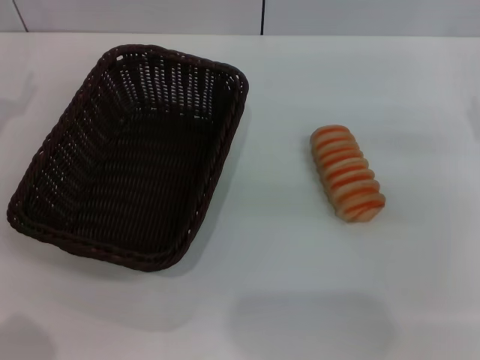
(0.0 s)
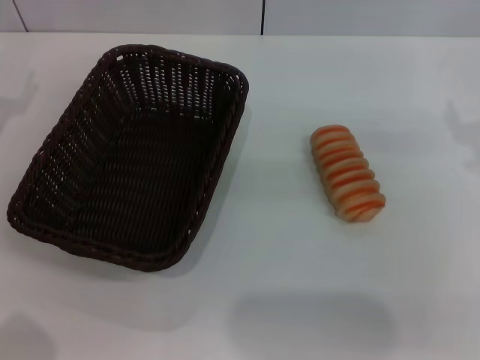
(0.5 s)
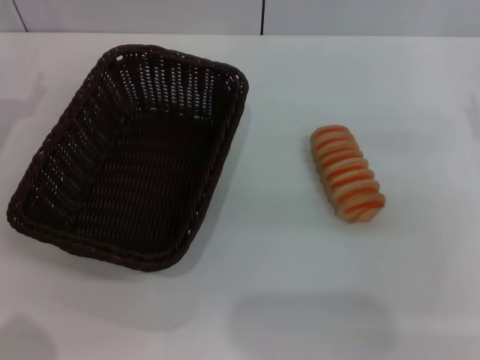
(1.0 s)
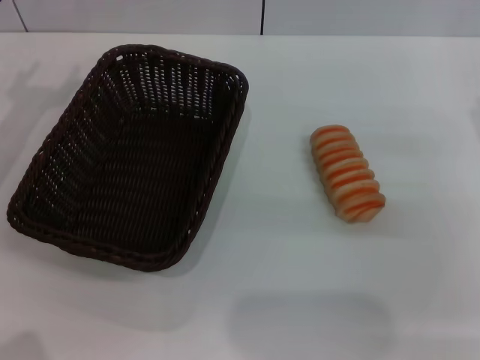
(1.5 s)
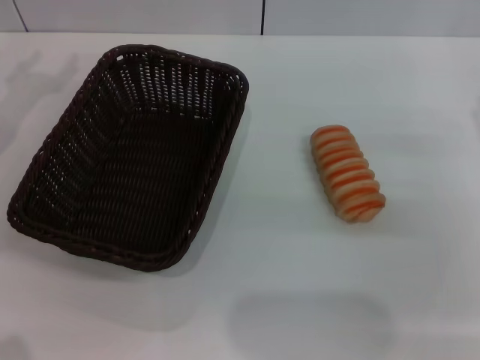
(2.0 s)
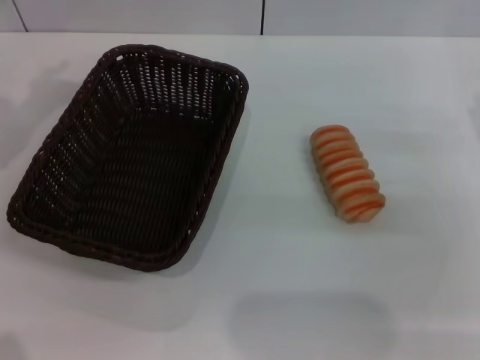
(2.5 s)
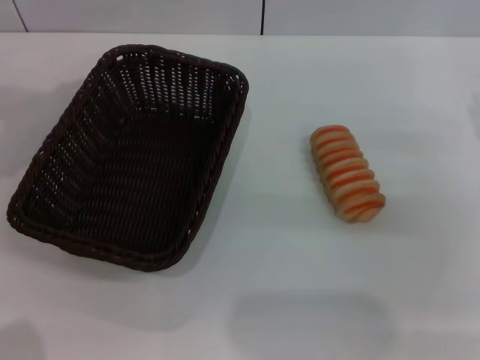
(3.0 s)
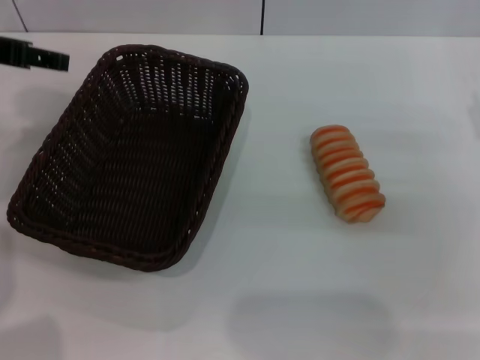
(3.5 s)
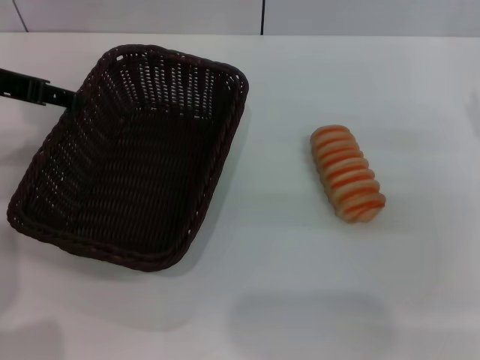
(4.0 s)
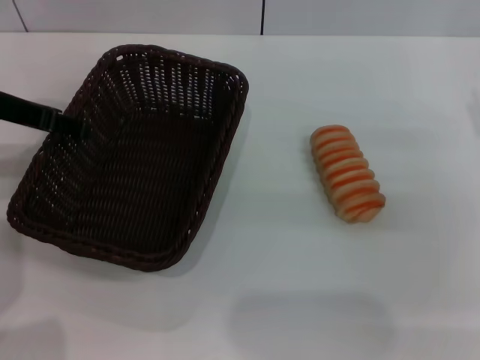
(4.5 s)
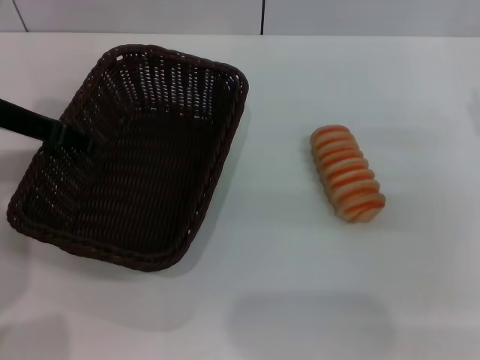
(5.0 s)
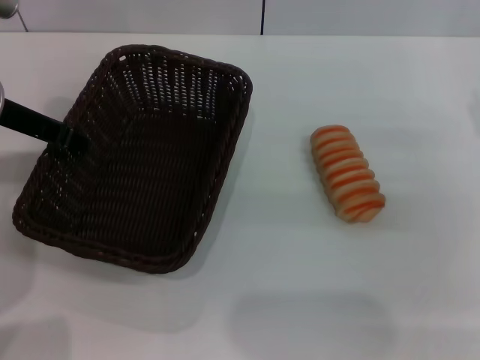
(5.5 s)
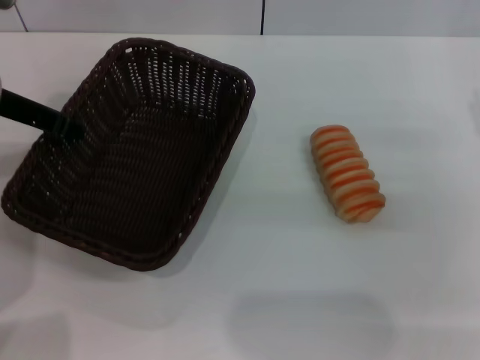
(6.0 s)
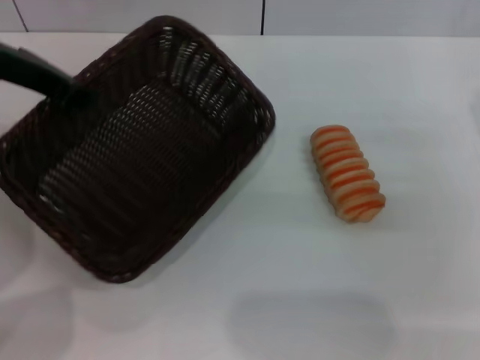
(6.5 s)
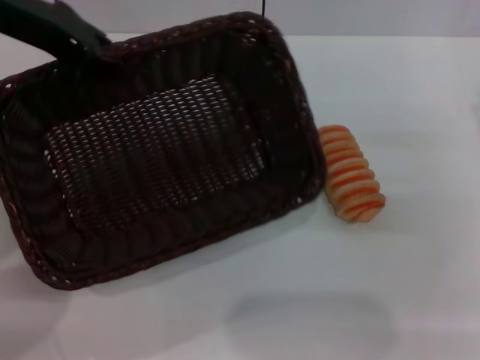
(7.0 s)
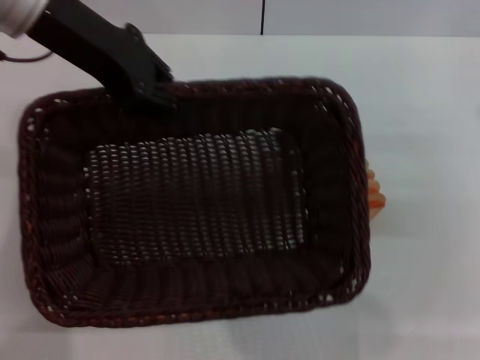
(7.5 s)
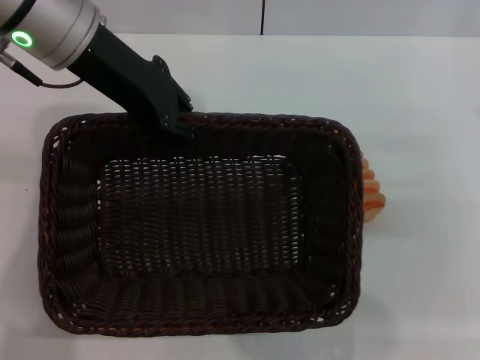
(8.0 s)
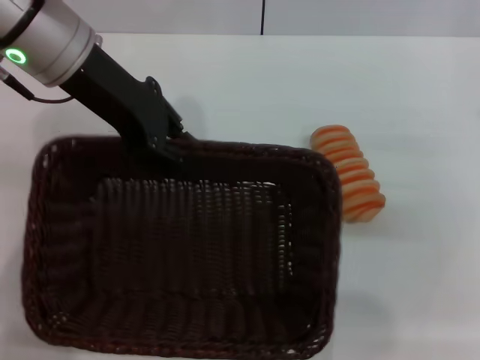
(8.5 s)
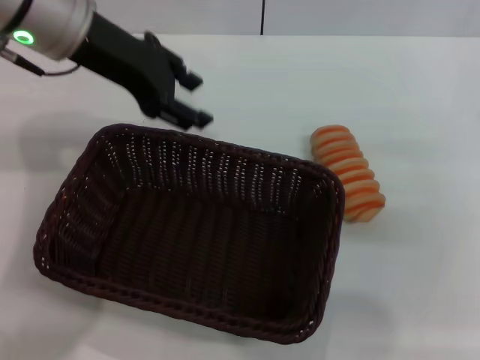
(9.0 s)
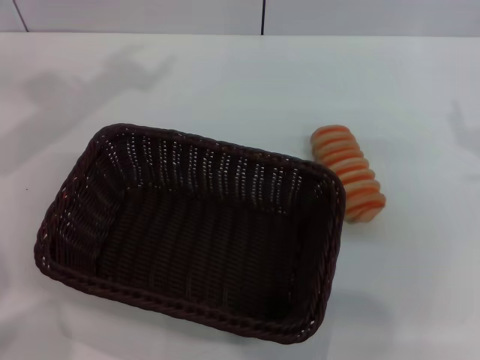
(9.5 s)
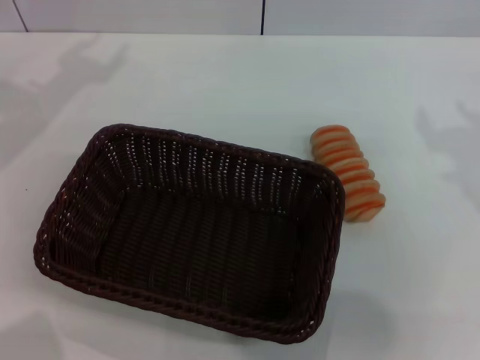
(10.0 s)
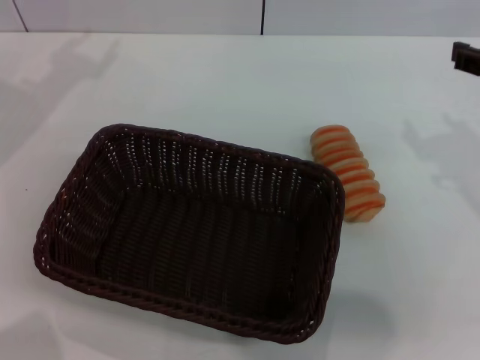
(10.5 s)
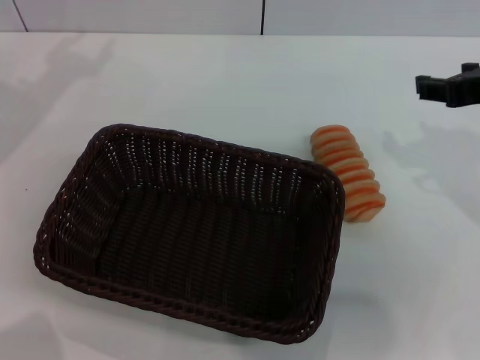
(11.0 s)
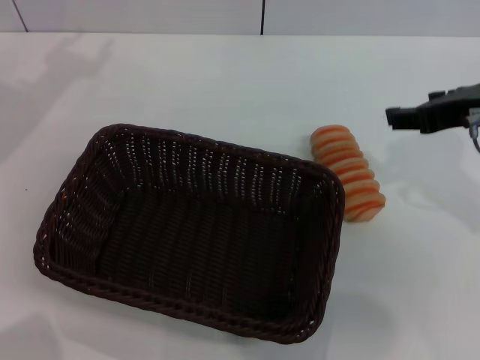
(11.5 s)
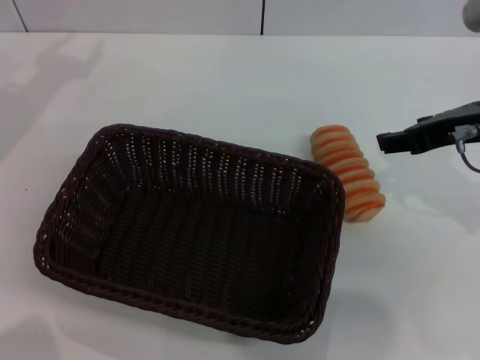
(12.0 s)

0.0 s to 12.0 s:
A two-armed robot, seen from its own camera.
Step, 0.0 to 5.5 s: Grasp the basket with the left gripper.
Step, 6.0 to 9.0 s: Place the basket in the center of the table with the left gripper.
2.0 to 4.0 s: The left gripper goes roughly 10 cm to the right.
4.0 to 6.0 s: The left gripper closes its fingers.
6.0 to 8.0 s: The left gripper shifts roughly 10 cm to the right and upward.
8.0 to 10.0 s: The left gripper heads to the left, covering some 15 cm, and opens its fingers, while the right gripper moves about 5 cm.
10.0 to 12.0 s: The right gripper moves approximately 5 cm.

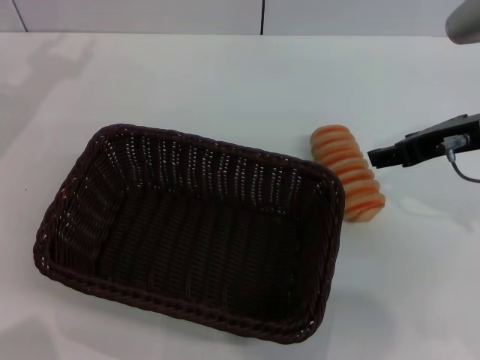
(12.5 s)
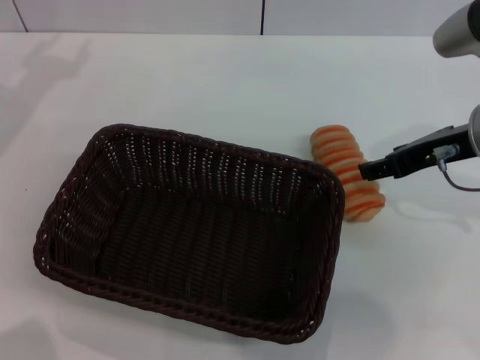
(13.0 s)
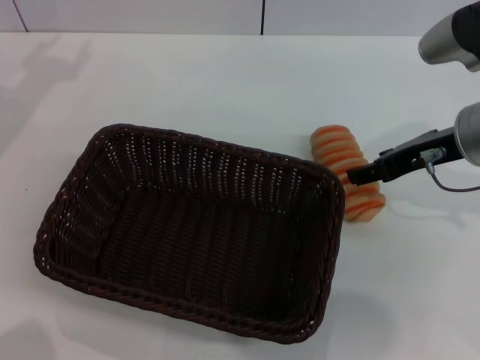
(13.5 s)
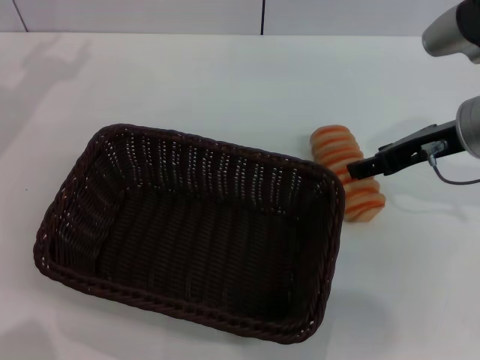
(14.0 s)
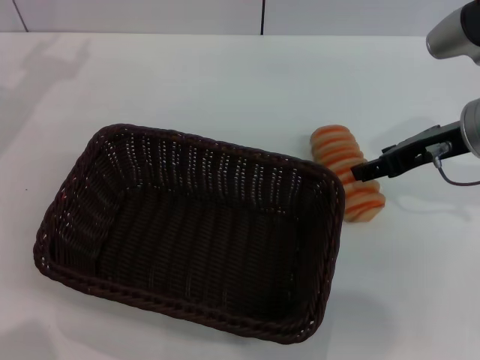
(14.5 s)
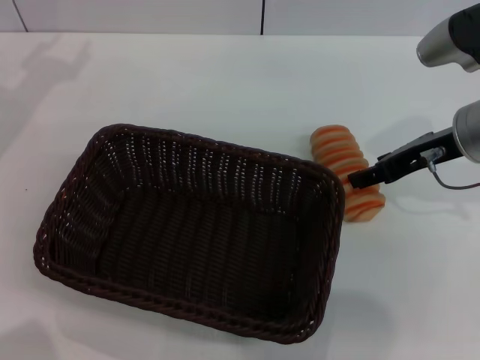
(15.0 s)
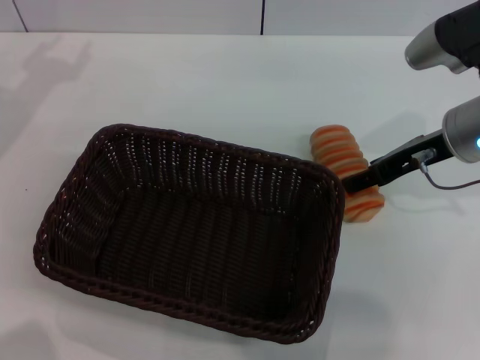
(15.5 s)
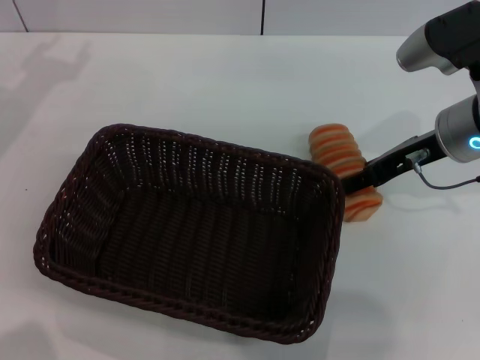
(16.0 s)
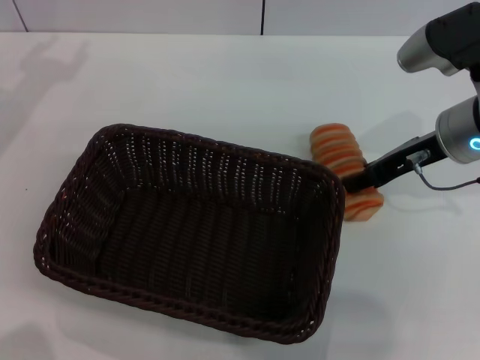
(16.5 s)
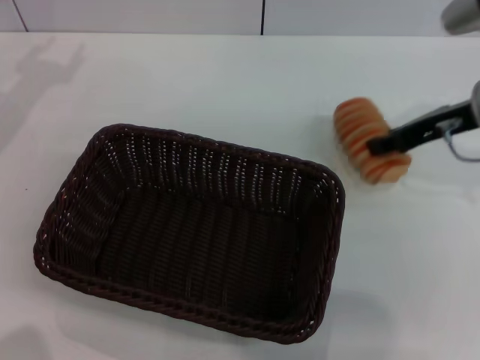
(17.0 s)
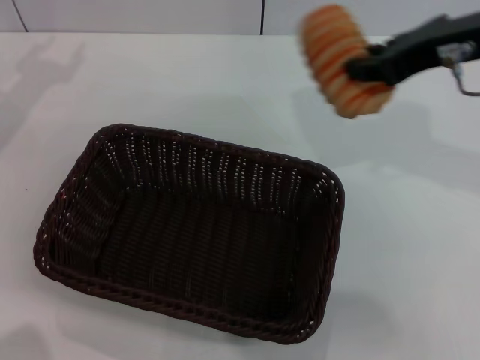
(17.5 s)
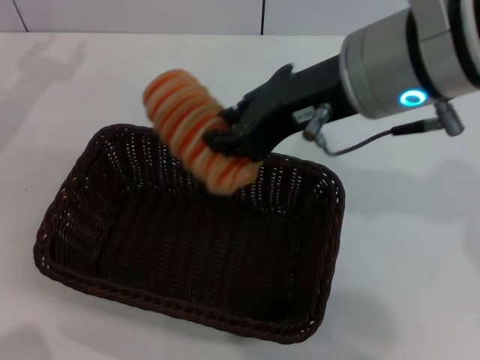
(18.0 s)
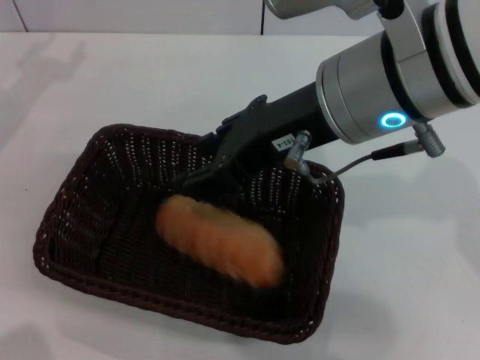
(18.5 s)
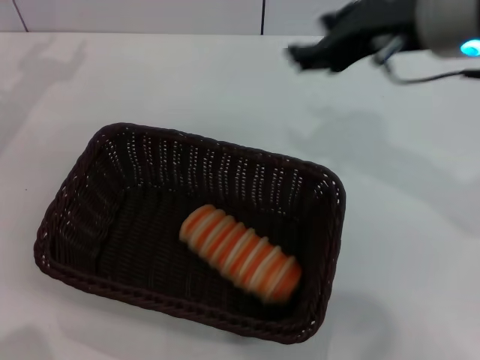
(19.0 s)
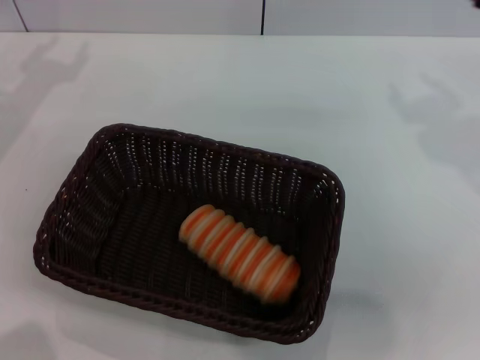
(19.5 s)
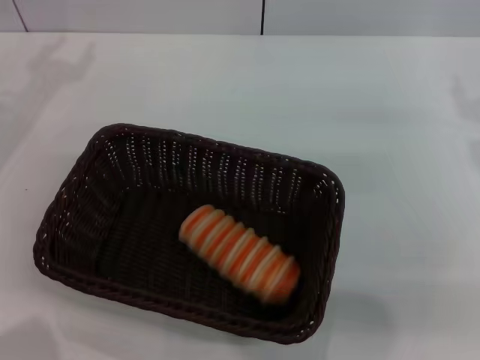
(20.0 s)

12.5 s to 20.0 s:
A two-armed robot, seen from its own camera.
Step, 12.5 to 16.5 s: Grasp the long bread with right gripper.
Step, 17.0 to 18.5 s: Place the long bread in the basket with right gripper.
12.5 to 14.5 s: The grippers stay close to where they were, moving slightly.
14.5 to 16.5 s: The right gripper closes.
16.5 to 18.0 s: The right gripper moves upward, to the left and backward, approximately 20 cm, and closes.
18.0 to 20.0 s: The right gripper moves to the right, roughly 20 cm, and opens its fingers.

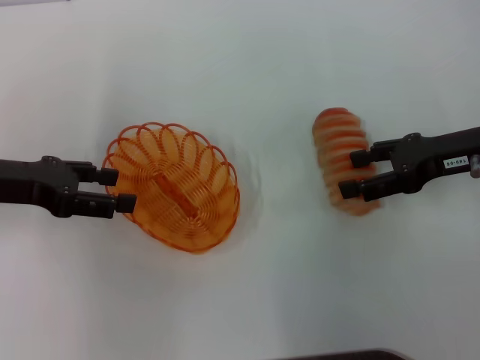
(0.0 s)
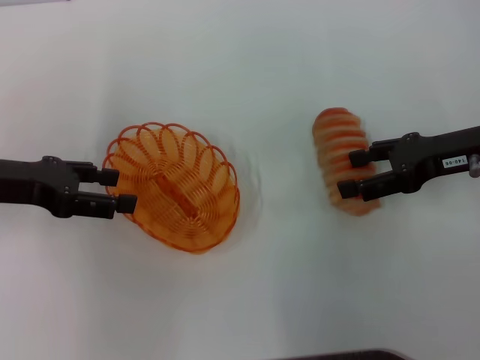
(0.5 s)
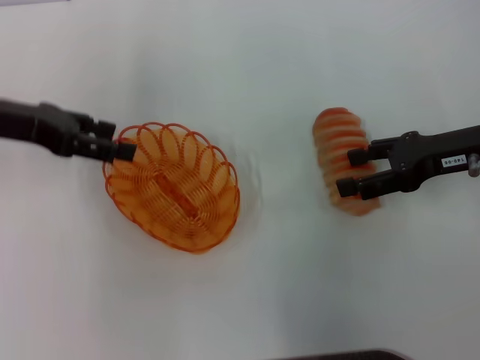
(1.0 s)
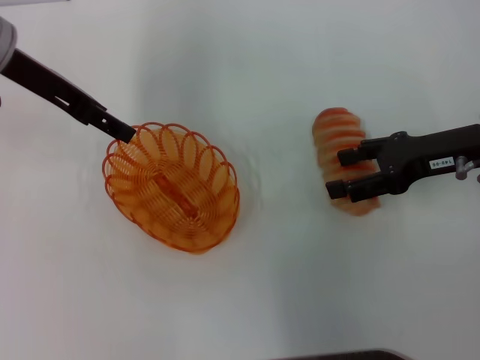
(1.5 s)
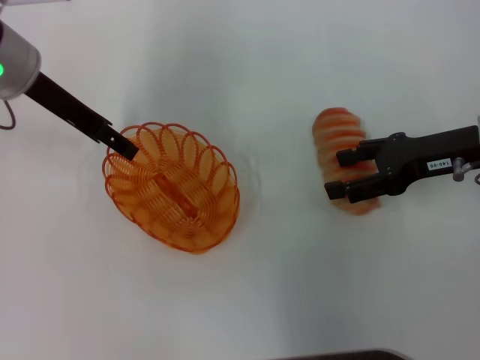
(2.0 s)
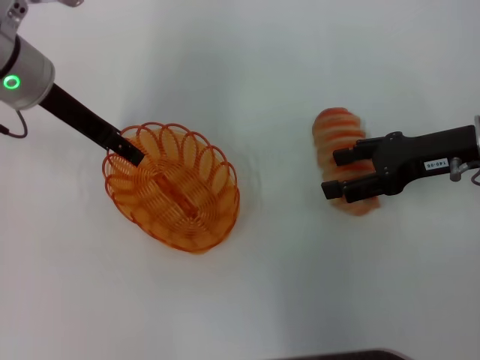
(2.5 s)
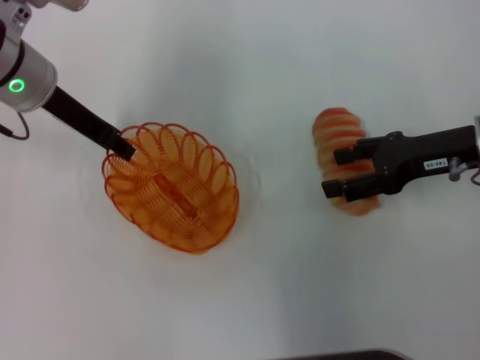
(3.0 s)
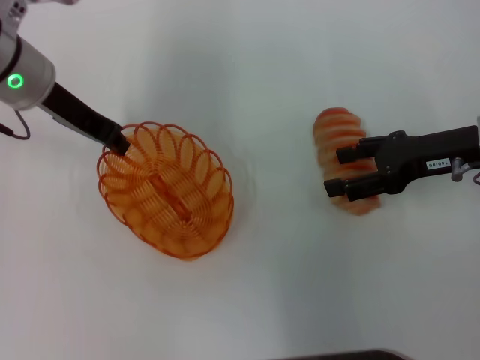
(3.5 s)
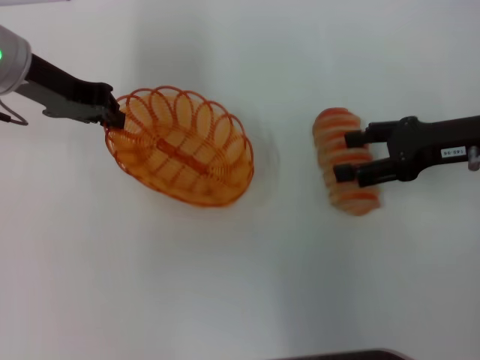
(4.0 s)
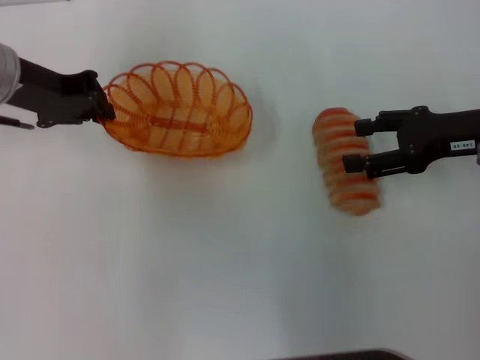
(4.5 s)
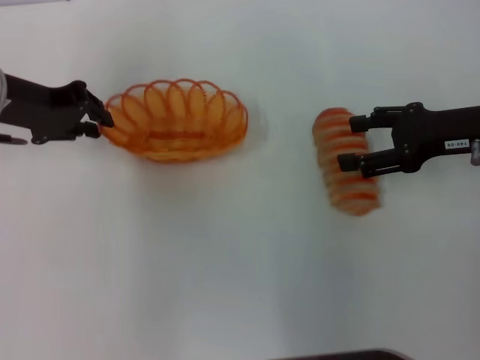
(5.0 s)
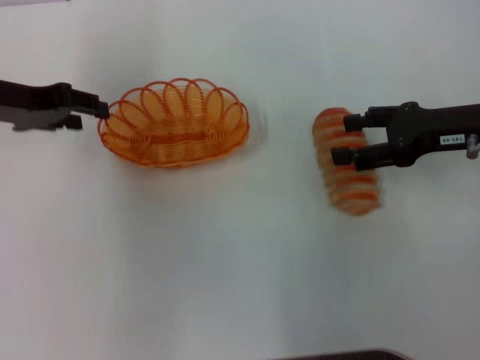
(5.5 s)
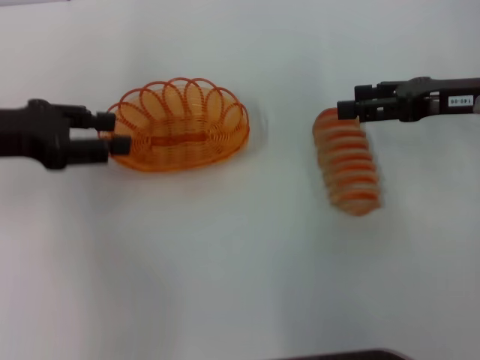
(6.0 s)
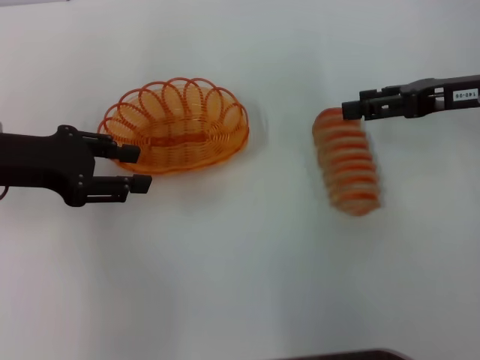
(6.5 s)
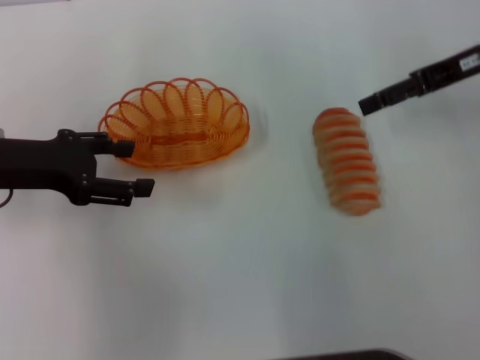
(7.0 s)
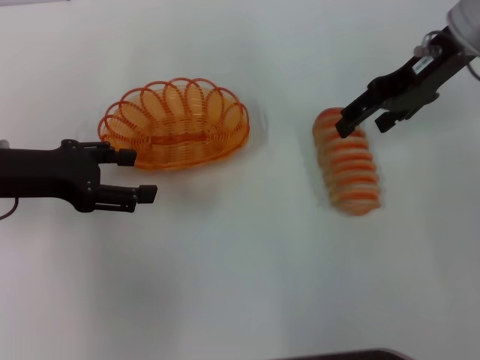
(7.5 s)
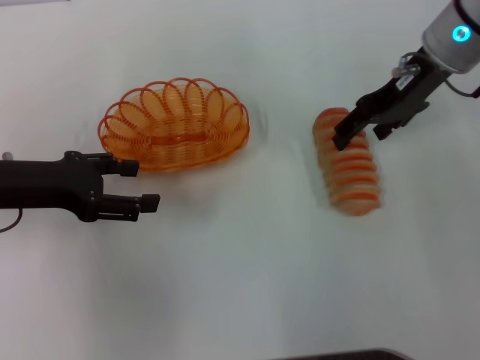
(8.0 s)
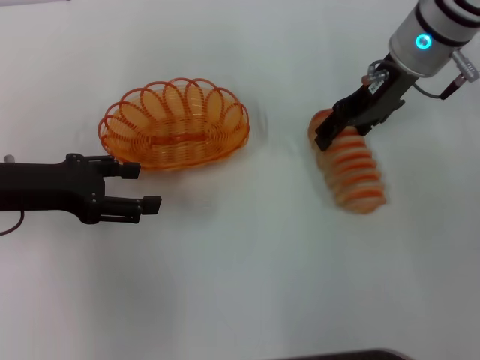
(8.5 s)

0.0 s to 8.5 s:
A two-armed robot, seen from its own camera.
Step, 0.0 to 3.5 s: Pick up the basket with the left gripper.
Step, 4.0 to 6.0 s: Place the basket in the center of view with the left gripper.
0.0 to 2.0 s: The left gripper shifts roughly 15 cm forward, to the right and upward.
2.0 to 4.0 s: The left gripper closes.
4.0 to 6.5 s: The left gripper shifts about 10 cm backward, and opens up.
6.5 to 8.5 s: The left gripper opens. Meanwhile the right gripper is displaced to the left and forward by some 15 cm.
